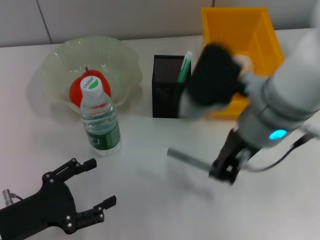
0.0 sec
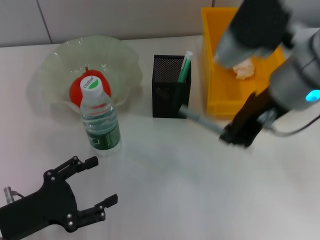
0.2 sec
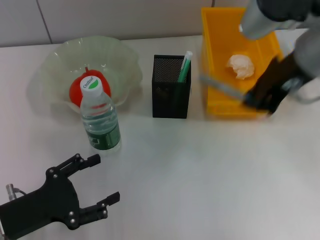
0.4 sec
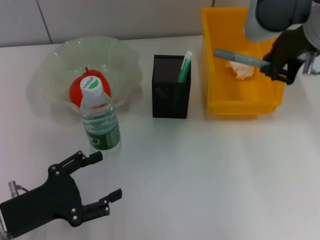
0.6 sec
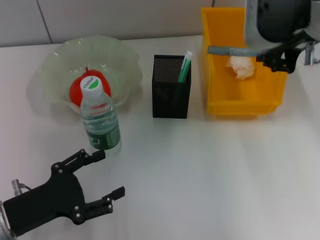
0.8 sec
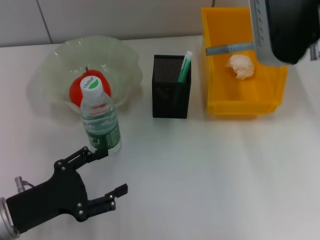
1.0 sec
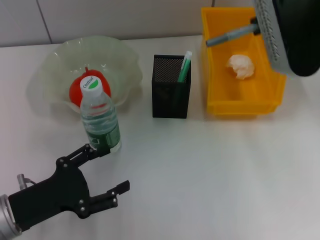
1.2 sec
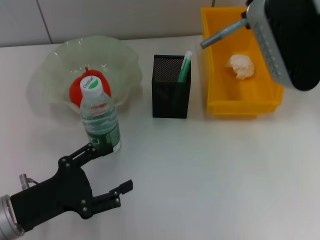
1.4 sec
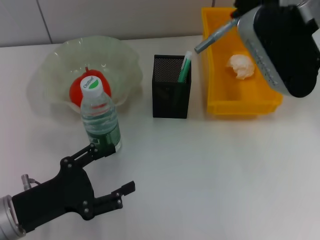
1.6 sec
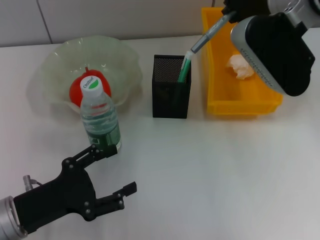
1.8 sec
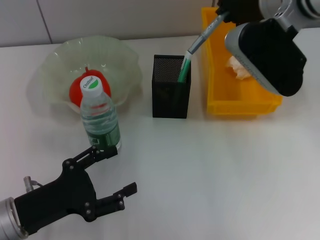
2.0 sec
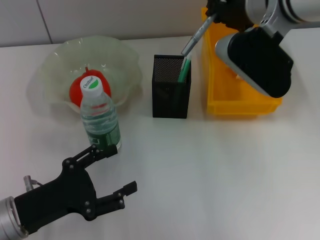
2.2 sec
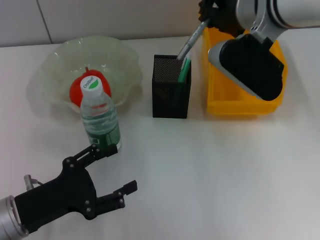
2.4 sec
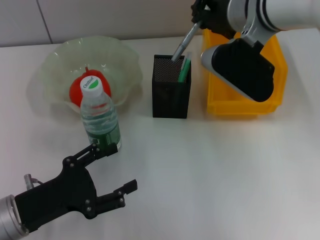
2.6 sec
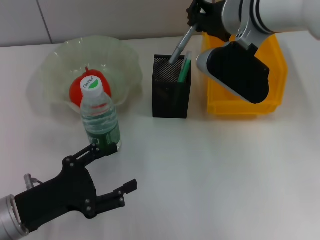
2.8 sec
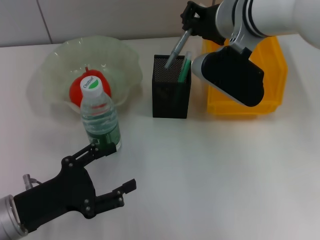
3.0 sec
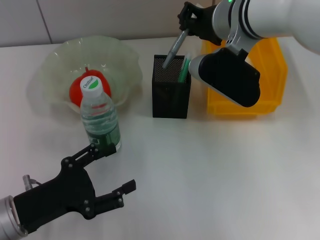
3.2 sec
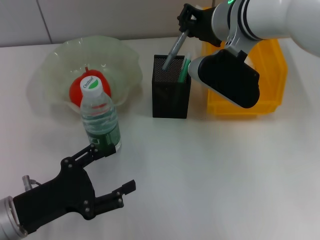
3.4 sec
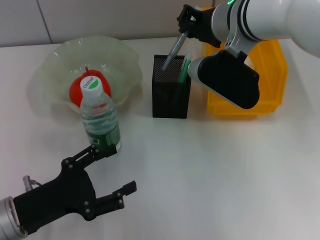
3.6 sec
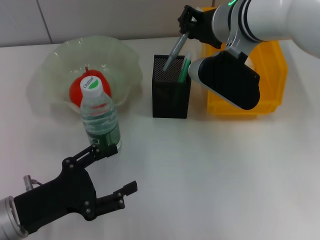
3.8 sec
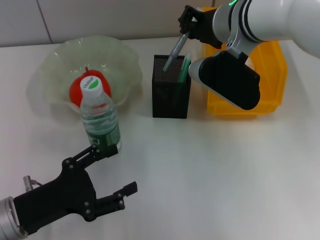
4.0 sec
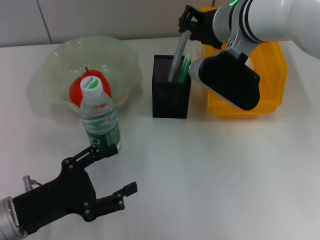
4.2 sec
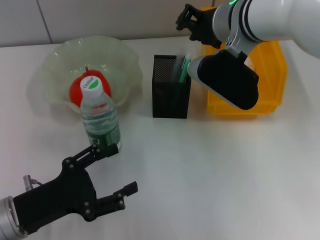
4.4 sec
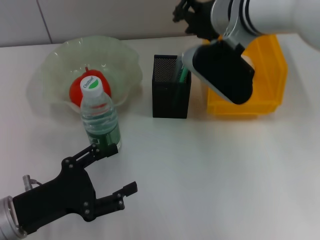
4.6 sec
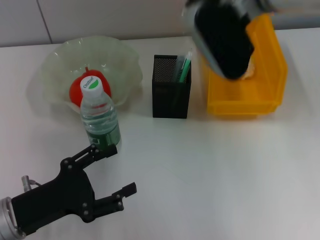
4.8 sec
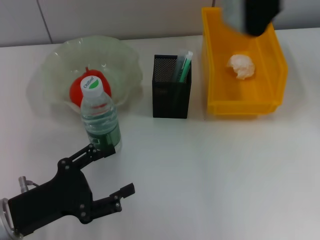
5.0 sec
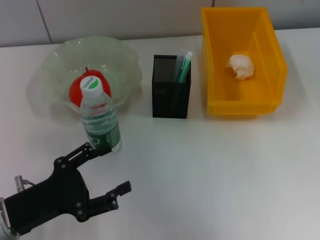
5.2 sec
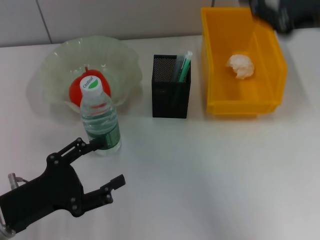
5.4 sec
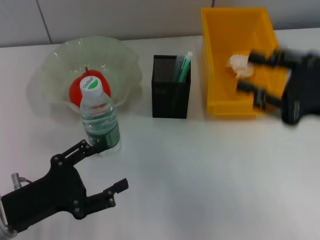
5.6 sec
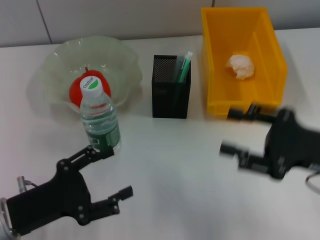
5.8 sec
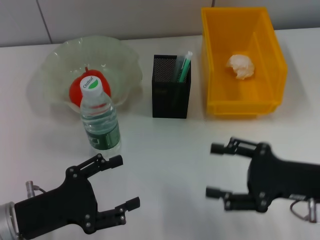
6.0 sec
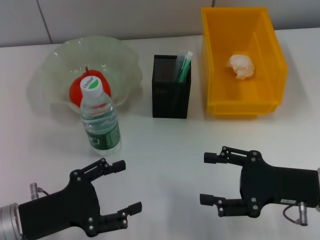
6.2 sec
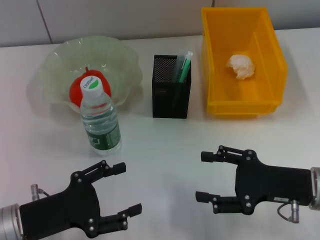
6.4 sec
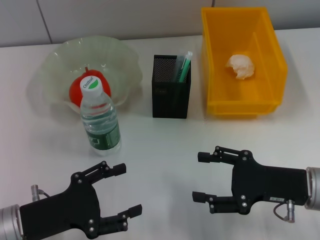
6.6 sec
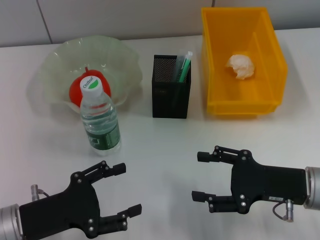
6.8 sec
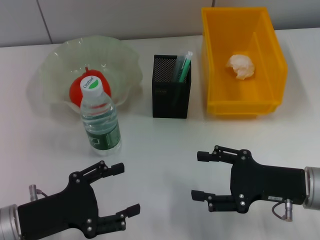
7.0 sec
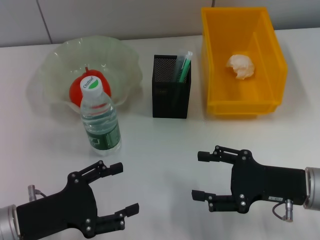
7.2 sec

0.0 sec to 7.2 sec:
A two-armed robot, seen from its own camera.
Step, 0.0 sec to 4.4 sec: Place the gray glue into the pen holder with the right hand.
0.0 sec to 1.4 sec: The right gripper goes approximately 10 cm upward and to the right.
1.4 sec to 2.8 sec: The right gripper heads downward, forward and to the left, covering about 10 cm.
2.8 sec to 4.4 sec: There are only small adjustments of the grippers.
4.4 sec to 5.8 sec: The right gripper shifts about 25 cm backward, to the right and downward, and opens its fingers.
5.8 sec to 7.2 sec: The right gripper goes roughly 5 cm downward, and opens up.
